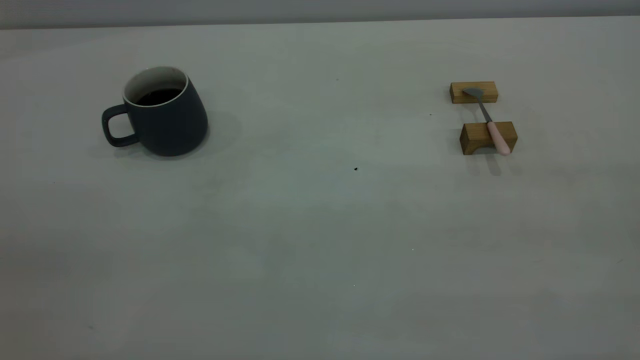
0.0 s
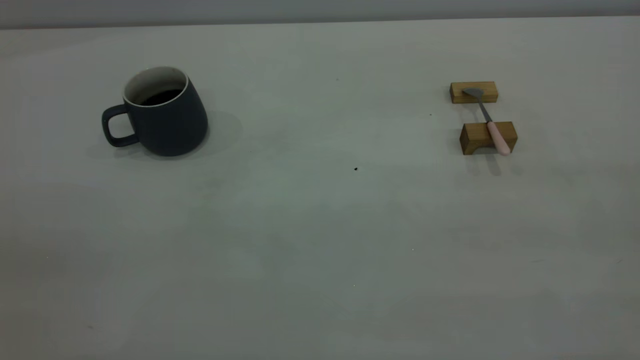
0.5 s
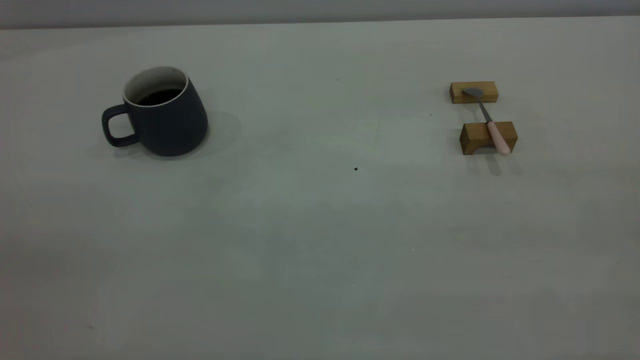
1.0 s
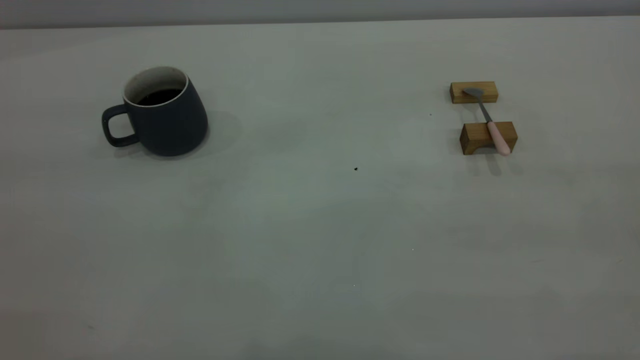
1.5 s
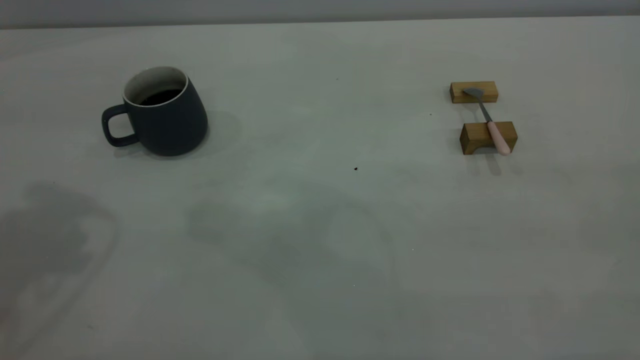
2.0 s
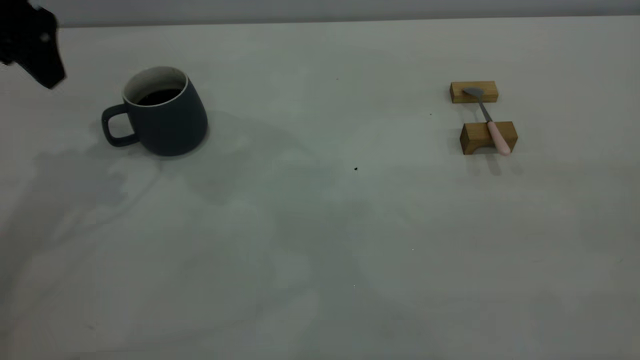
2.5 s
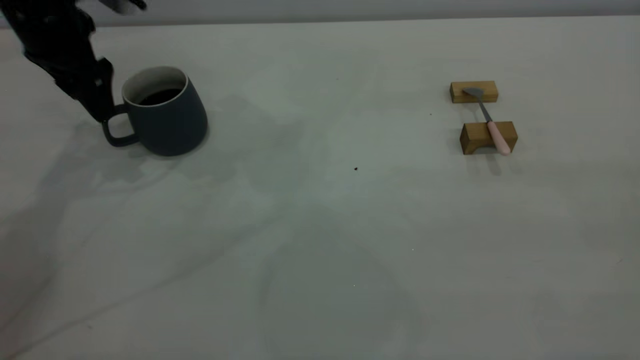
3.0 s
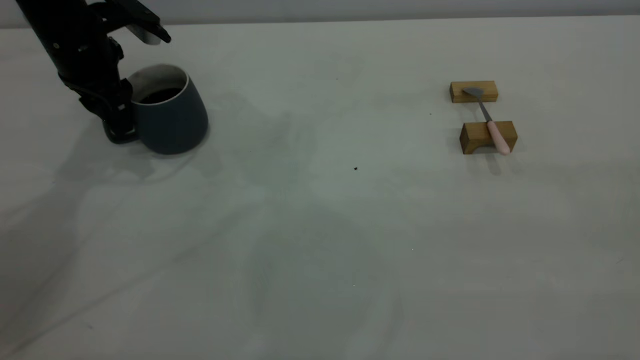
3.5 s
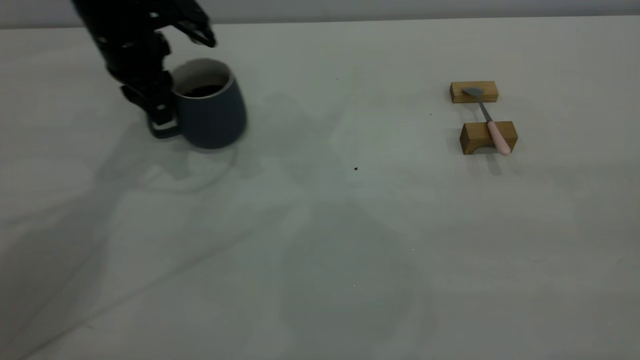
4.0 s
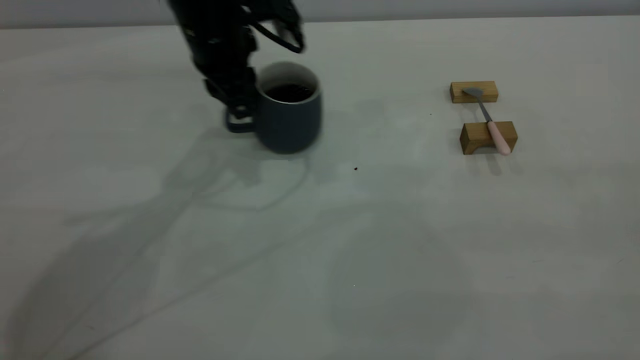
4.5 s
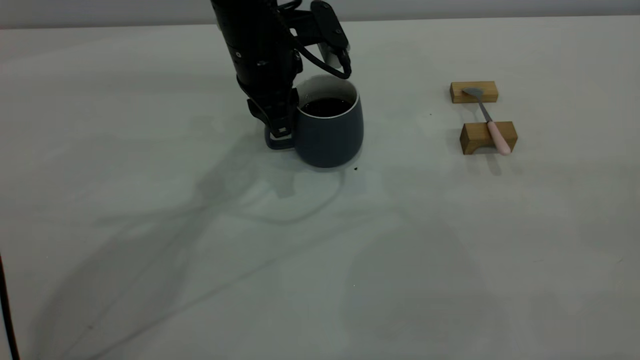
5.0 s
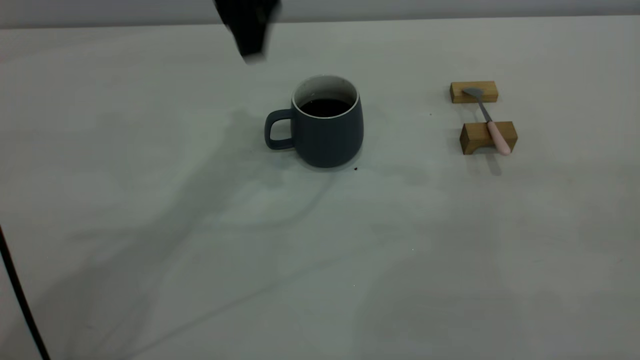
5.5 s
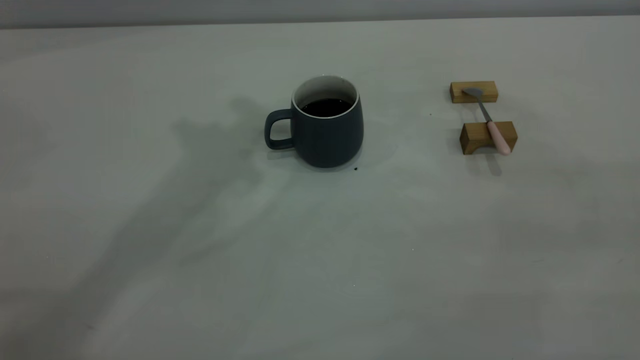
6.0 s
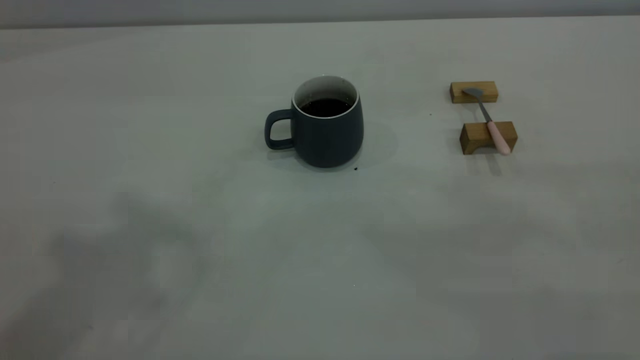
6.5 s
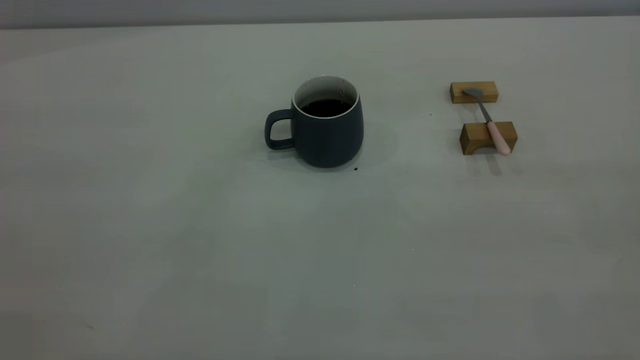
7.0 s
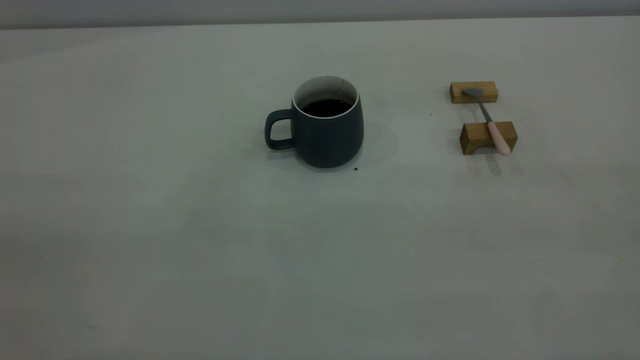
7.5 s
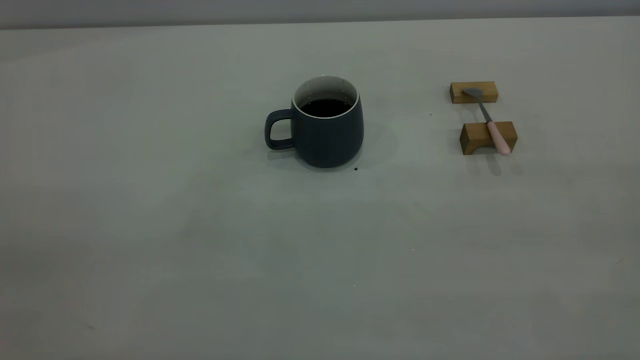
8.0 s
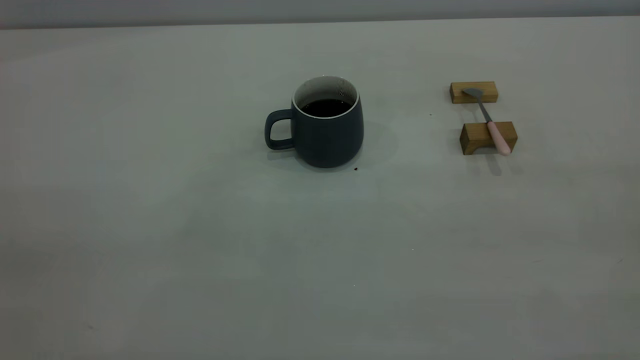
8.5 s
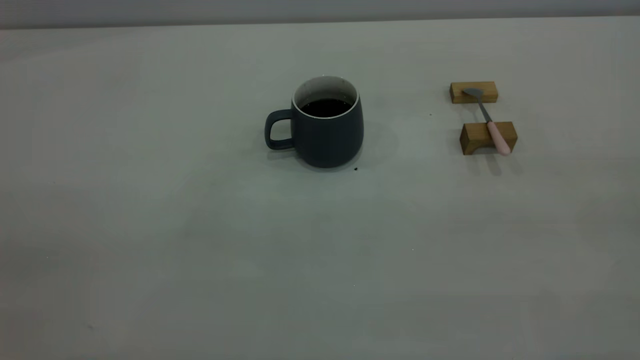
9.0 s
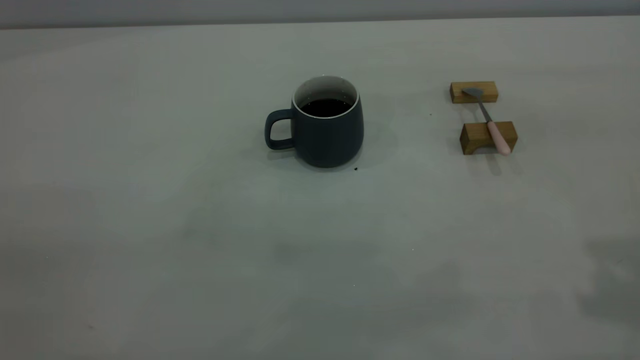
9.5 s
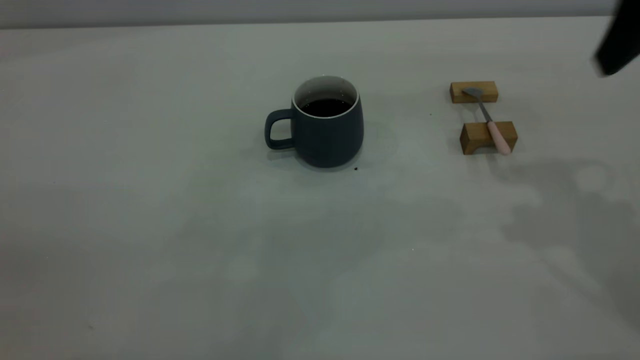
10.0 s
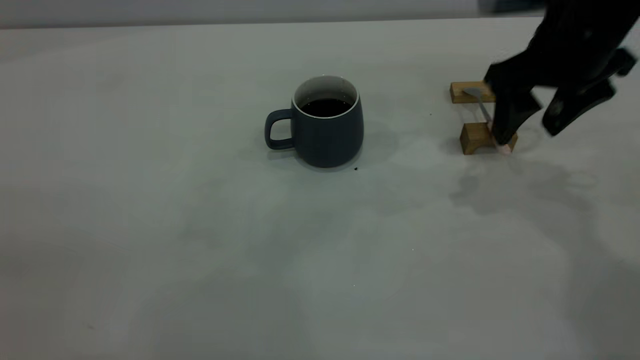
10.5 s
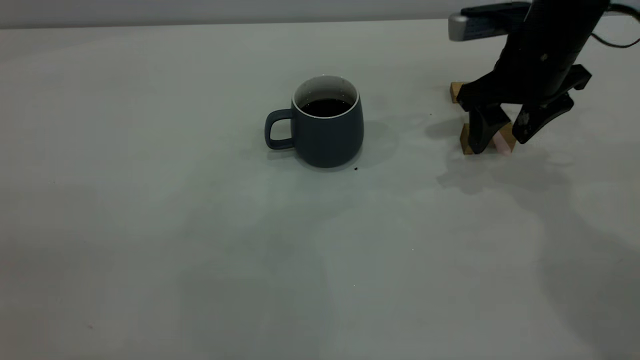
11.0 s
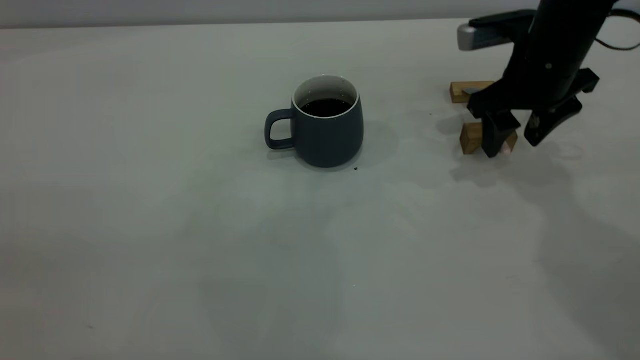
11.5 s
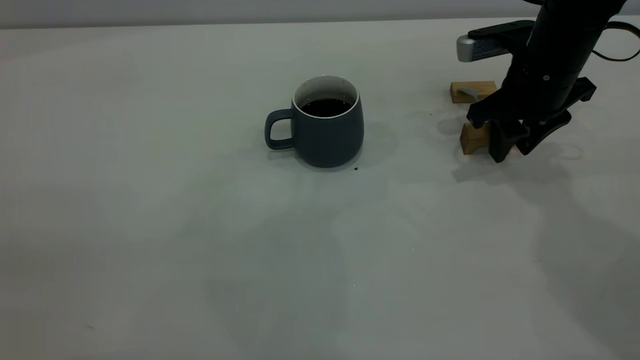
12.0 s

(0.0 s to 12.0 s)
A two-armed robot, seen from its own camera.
Step, 0.0 s - 5.0 s: Move the cup with coffee to the center of view.
2.0 s - 4.0 s: The left gripper goes some 30 cm downward, forward and to the right, and closes its fingers.
4.0 s - 6.0 s: The left gripper shifts approximately 30 cm upward, and opens up.
8.0 s - 10.0 s: The right gripper is displaced forward by about 30 cm, and opens its fingers.
10.0 s - 12.0 s: The right gripper shifts some 20 cm downward and forward, and closes.

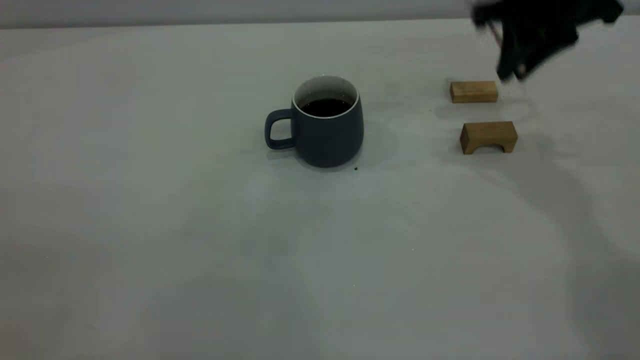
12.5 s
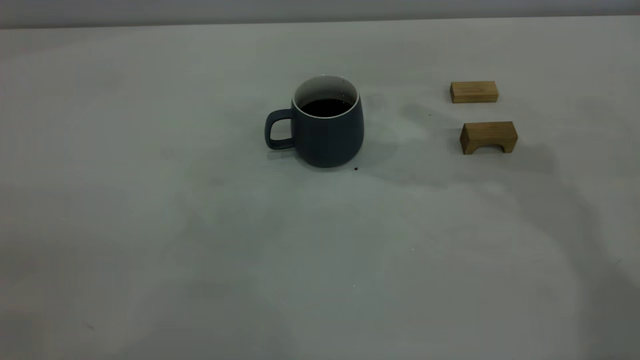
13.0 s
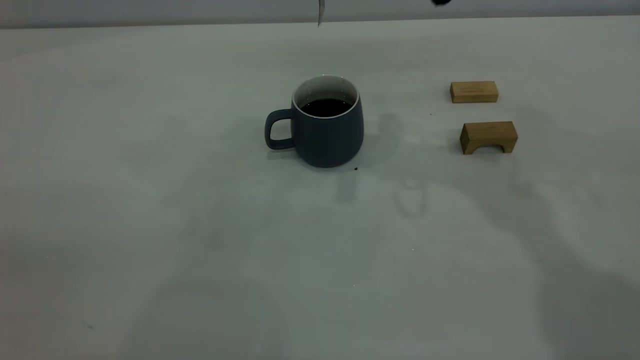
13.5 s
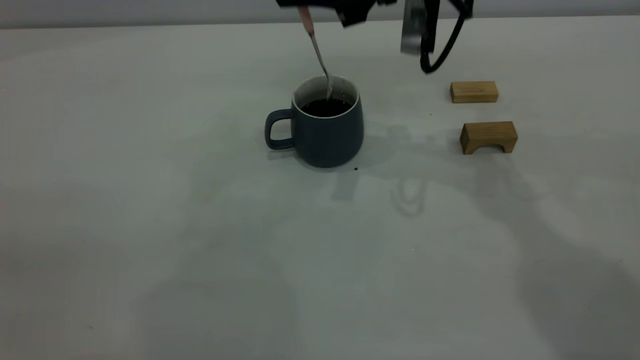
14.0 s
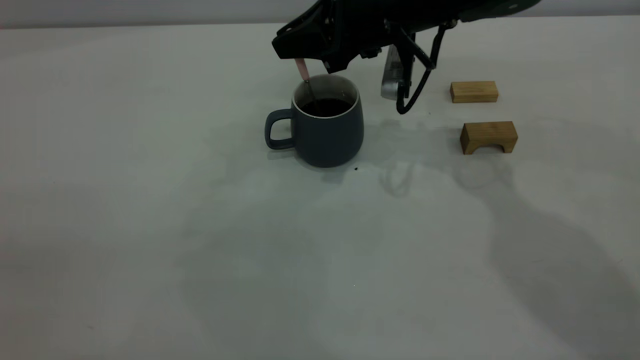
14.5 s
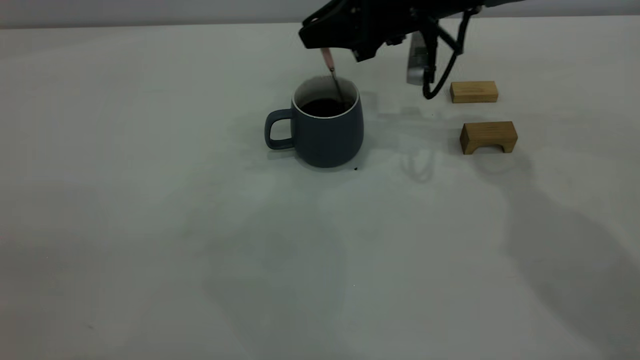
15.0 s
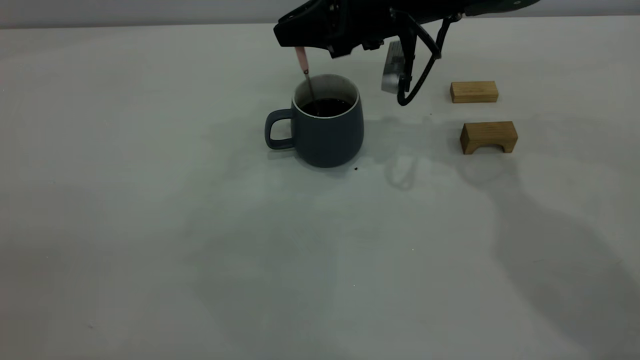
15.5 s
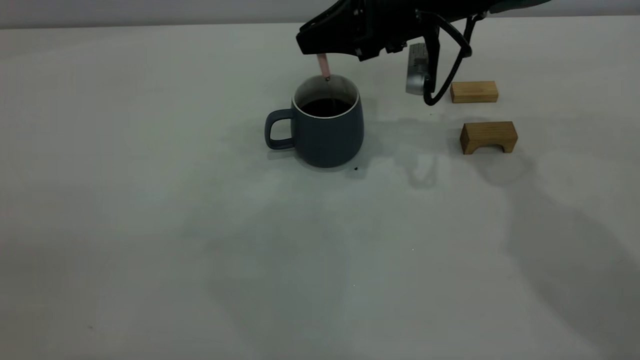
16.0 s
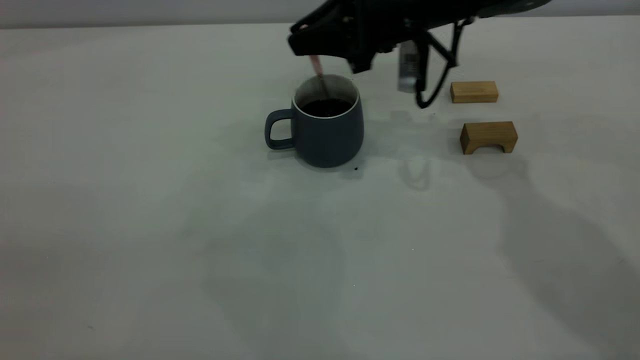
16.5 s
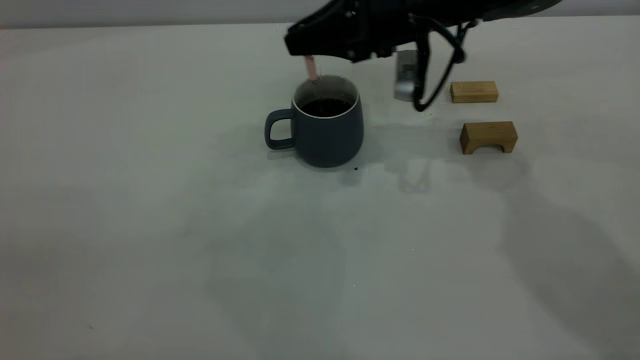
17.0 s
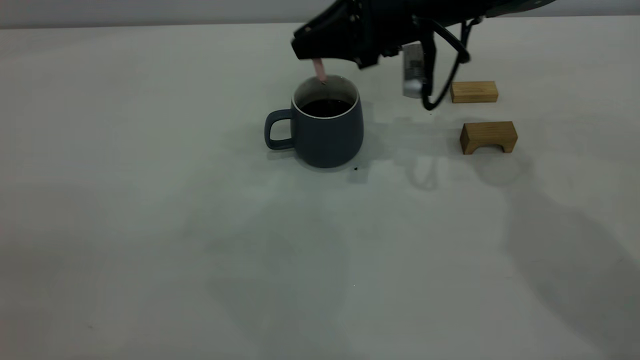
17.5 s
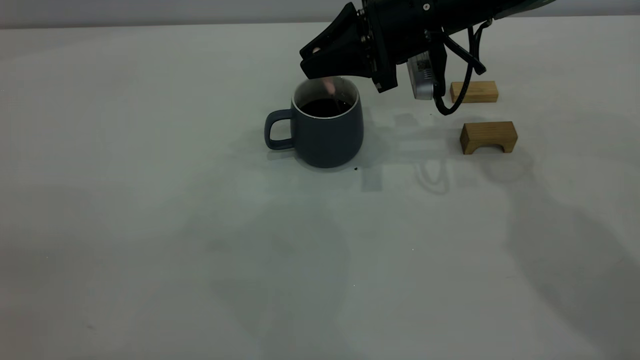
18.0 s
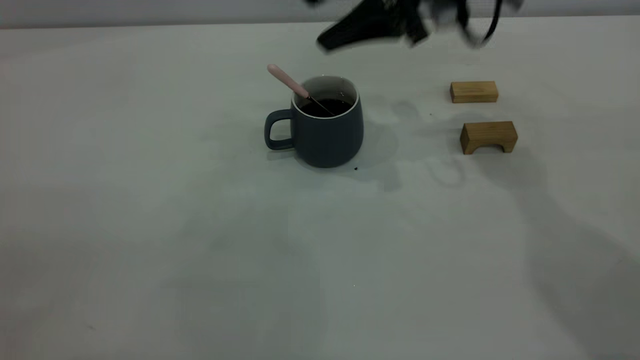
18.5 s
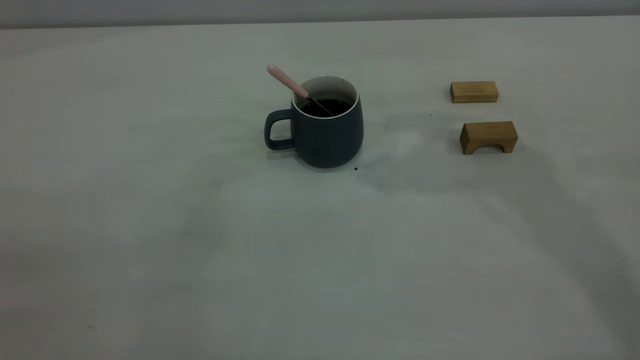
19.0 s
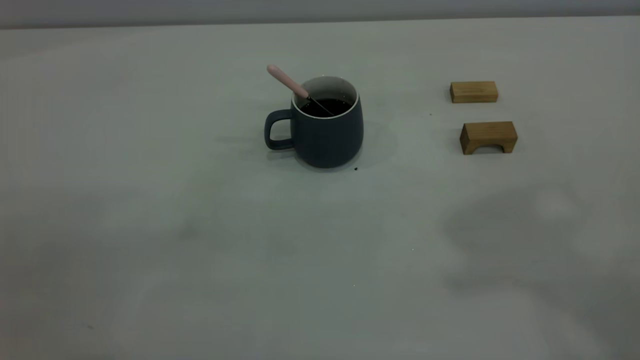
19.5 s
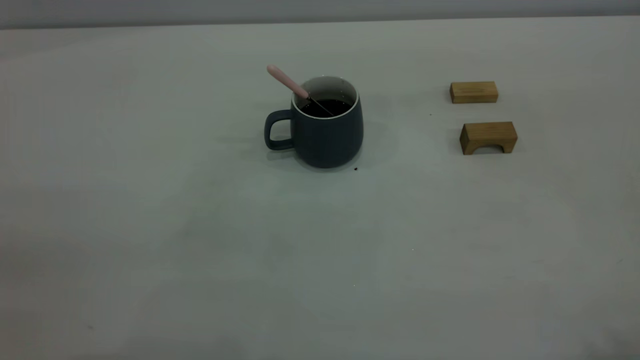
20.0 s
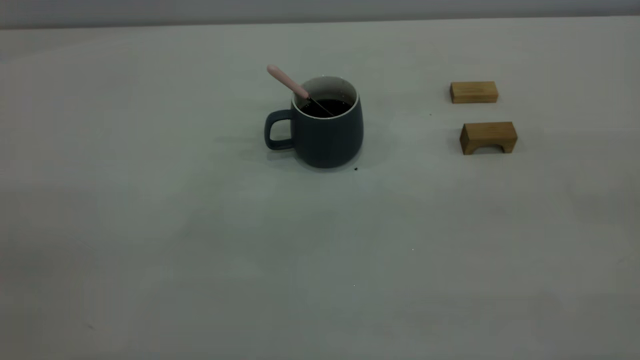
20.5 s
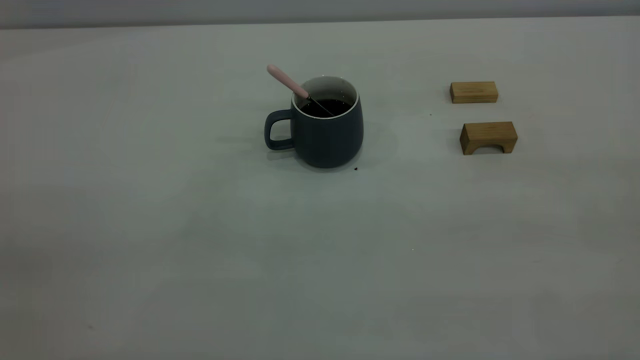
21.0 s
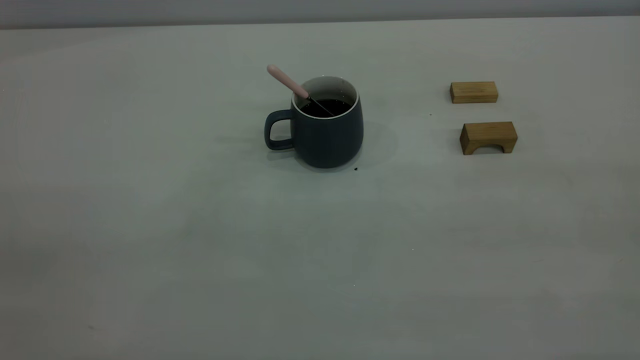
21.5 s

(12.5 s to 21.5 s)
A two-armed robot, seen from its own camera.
Step, 12.5 s - 18.0 s: Stir the coffee in the cup.
12.5 s - 14.5 s: The right gripper shifts approximately 15 cm to the left and downward.
14.5 s - 17.0 s: The grippers make only small movements.
17.0 s - 19.5 s: The right gripper is displaced upward and backward by some 50 cm, and opens and closes again.
